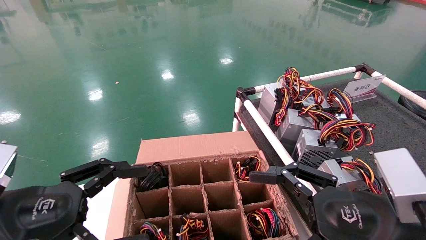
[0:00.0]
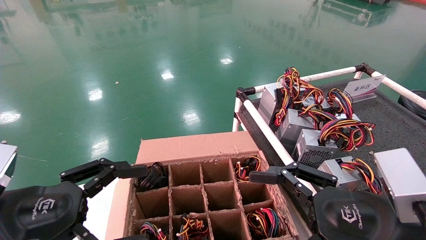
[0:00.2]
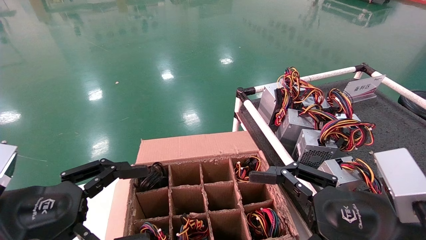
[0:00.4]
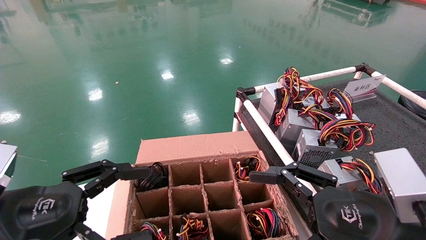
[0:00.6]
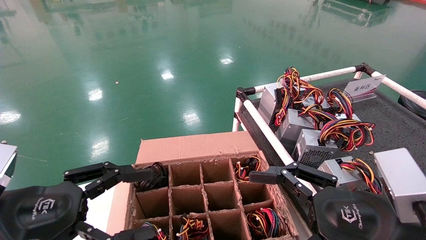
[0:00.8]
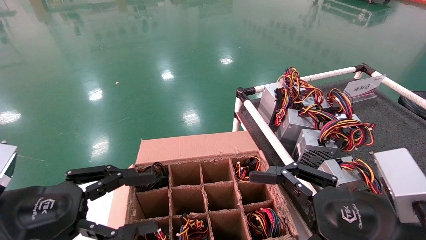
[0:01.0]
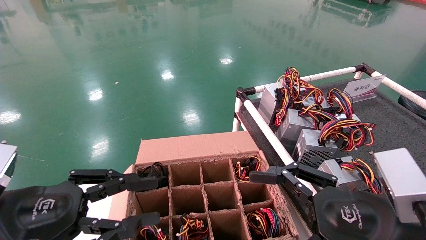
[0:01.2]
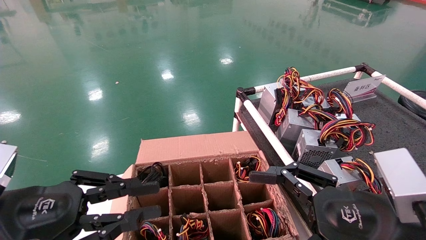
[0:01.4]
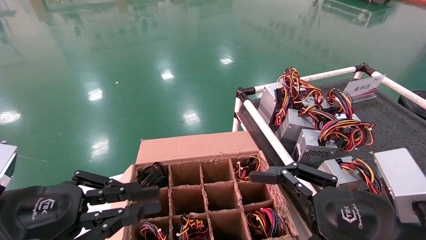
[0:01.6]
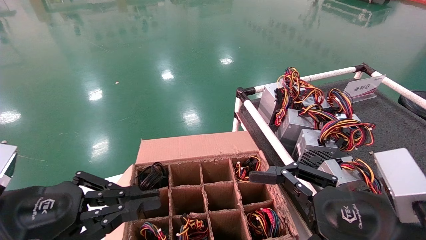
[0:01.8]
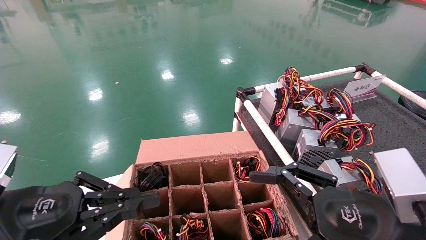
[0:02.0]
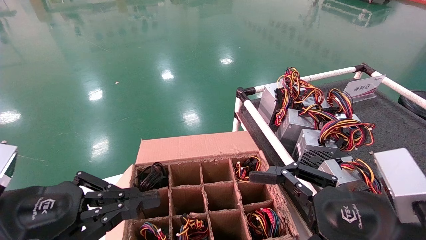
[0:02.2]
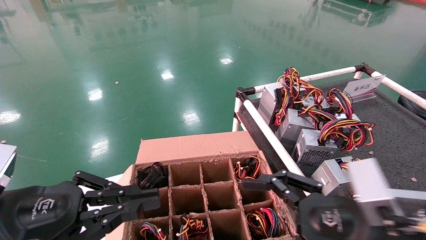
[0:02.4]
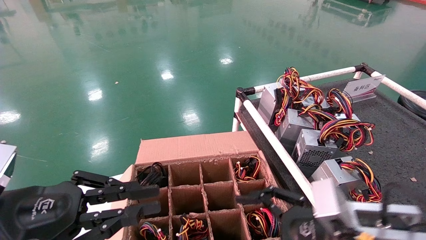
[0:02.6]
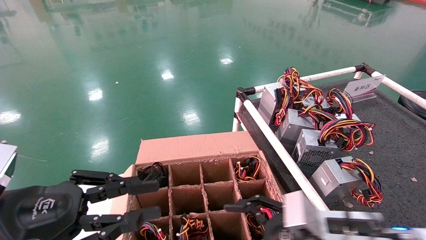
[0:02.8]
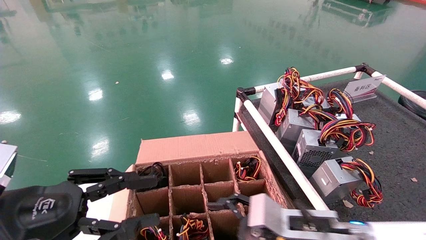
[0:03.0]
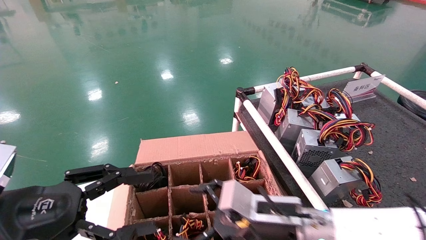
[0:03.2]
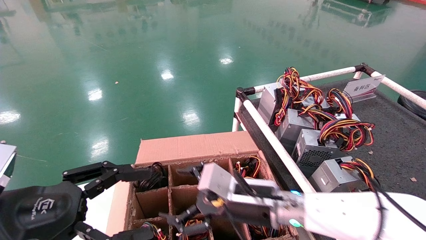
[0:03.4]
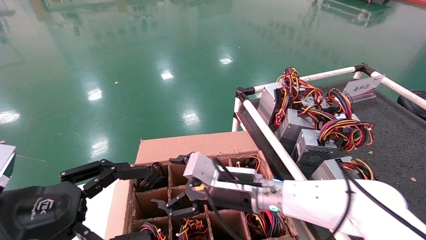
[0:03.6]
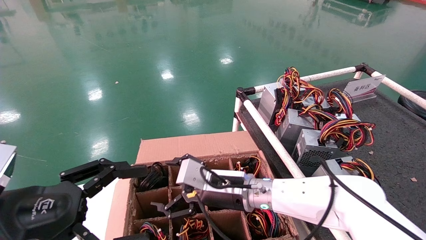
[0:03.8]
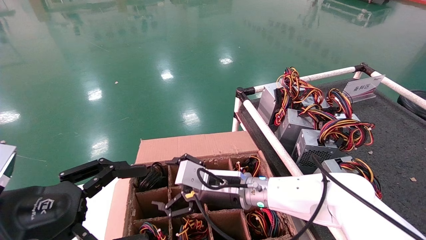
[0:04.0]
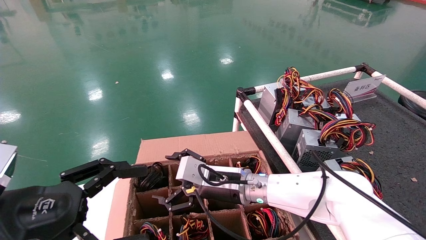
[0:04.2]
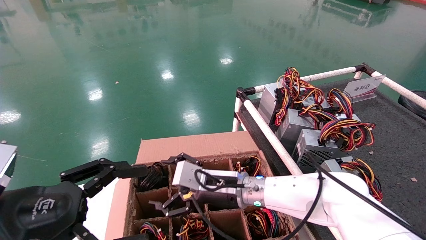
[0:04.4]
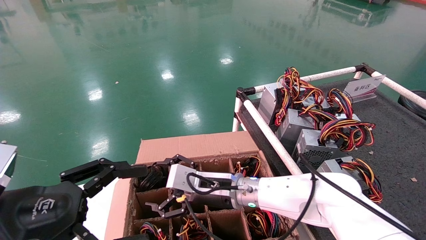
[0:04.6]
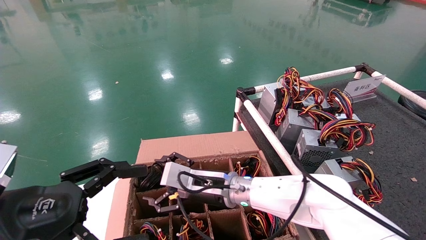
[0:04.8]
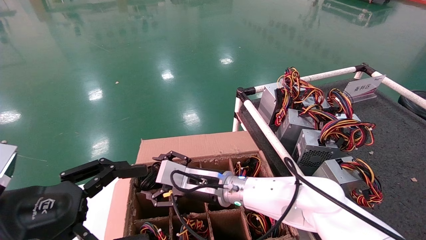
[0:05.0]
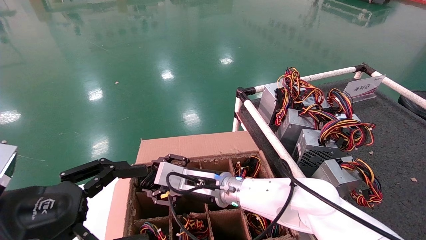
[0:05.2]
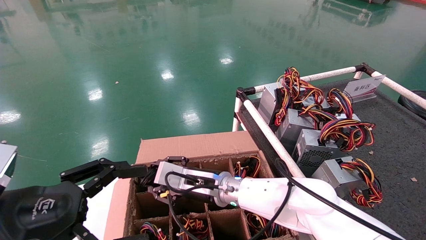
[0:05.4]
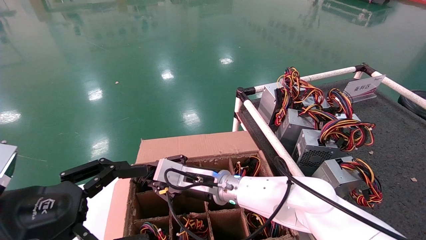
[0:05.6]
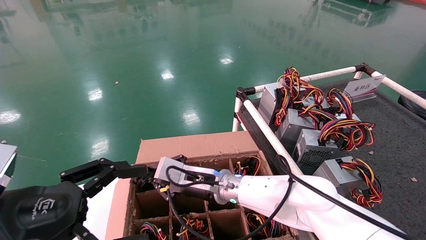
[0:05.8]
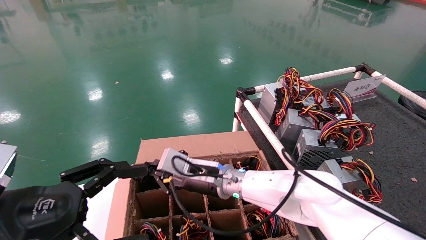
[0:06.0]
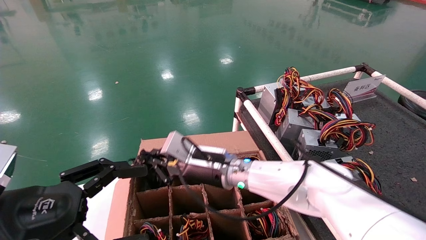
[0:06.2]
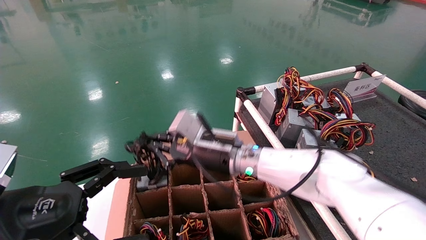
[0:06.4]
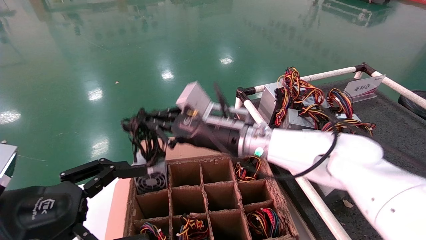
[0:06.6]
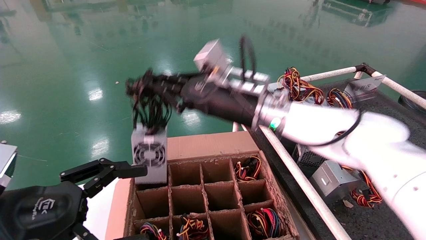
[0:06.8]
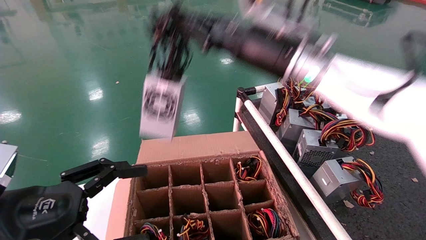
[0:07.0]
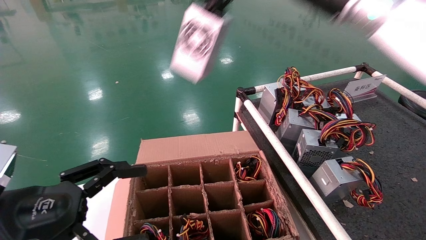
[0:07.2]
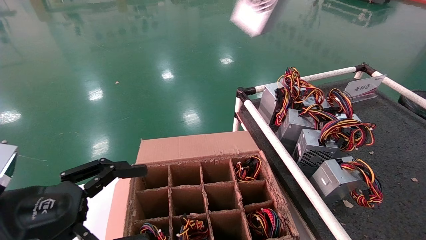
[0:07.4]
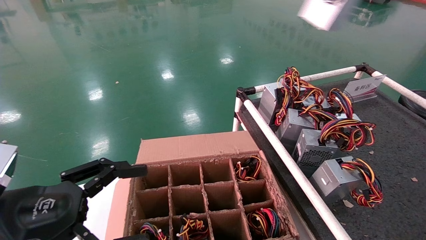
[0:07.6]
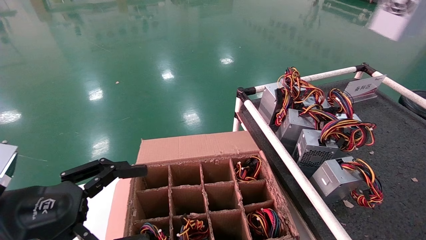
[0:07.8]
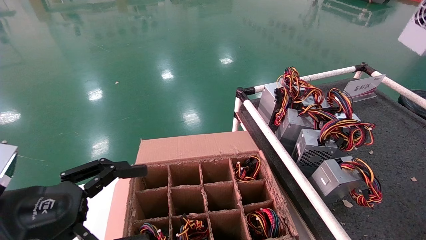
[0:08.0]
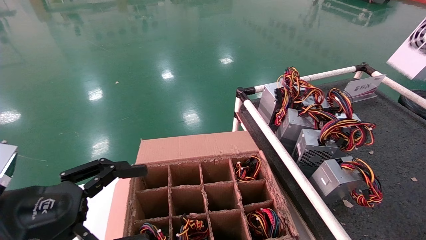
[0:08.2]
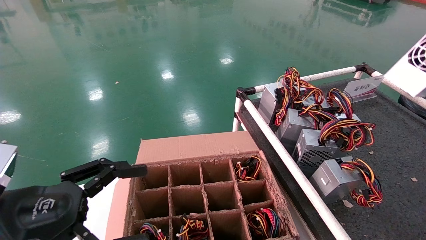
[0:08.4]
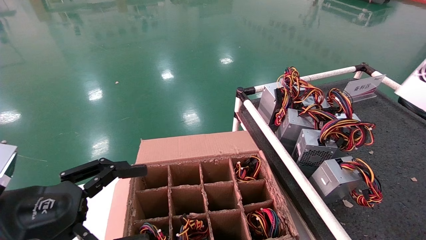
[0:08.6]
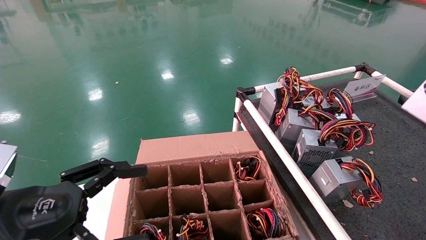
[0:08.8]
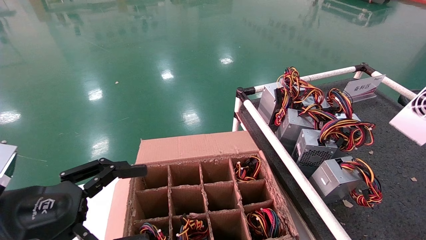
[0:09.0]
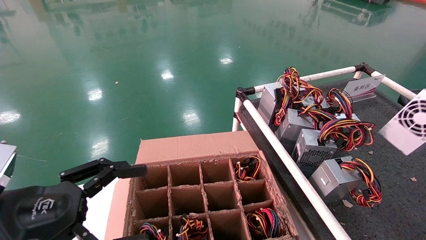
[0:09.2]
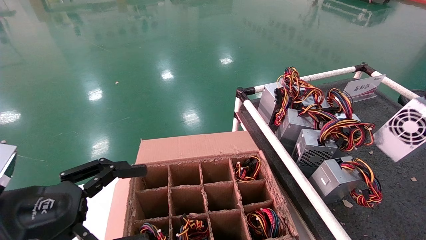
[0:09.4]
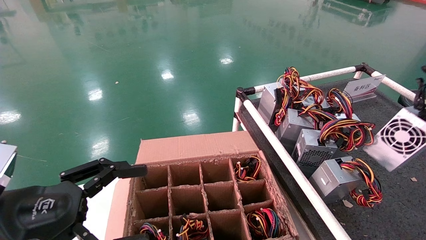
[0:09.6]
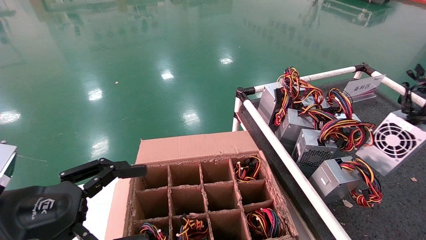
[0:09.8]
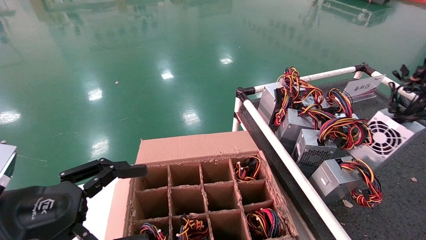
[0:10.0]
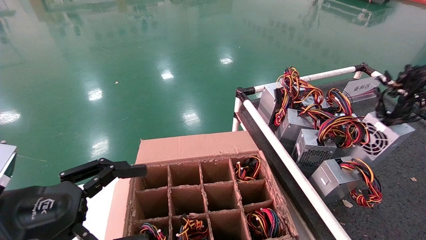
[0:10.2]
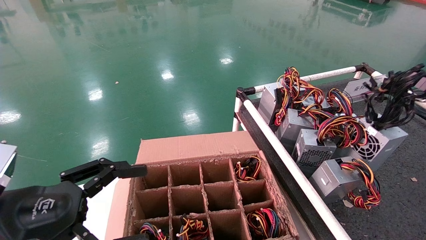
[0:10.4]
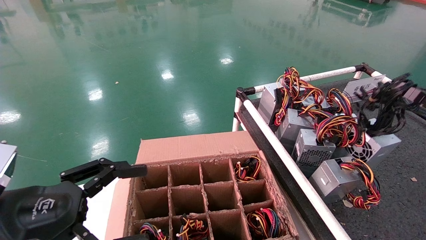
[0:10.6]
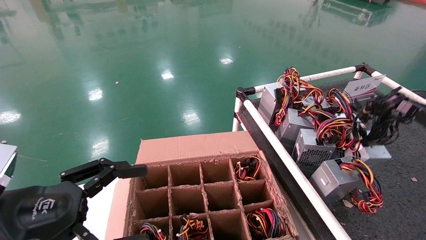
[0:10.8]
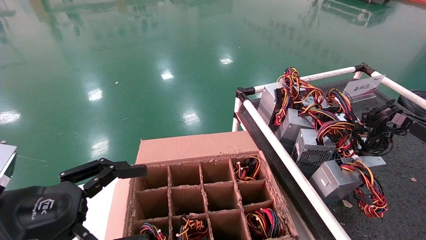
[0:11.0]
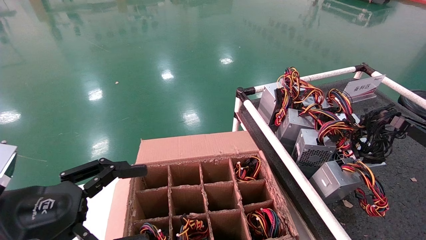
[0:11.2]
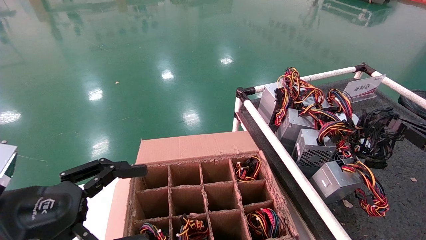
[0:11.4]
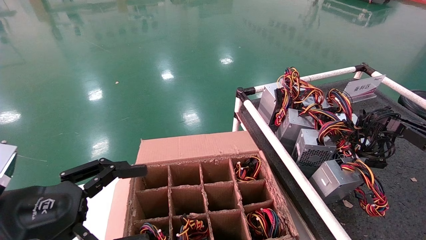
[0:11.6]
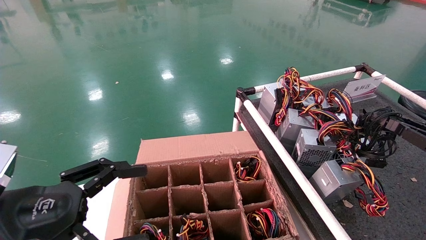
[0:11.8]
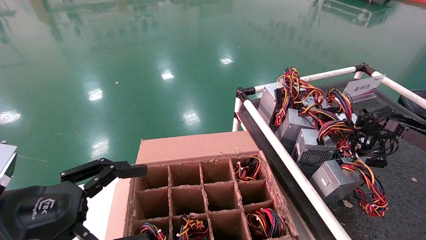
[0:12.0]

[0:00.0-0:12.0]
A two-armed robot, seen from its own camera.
Step, 0:02.6 to 0:06.2: Grab and lift the power supply from the large box.
Step, 0:06.4 to 0:12.0: Place the power supply on the operating table.
0:00.0 to 0:01.6: The left gripper closes.
0:01.6 to 0:03.0: The right gripper heads forward, to the left and downward, covering some 15 cm.
0:03.0 to 0:04.4: The right gripper travels to the left and forward by approximately 15 cm; the left gripper opens up.
0:04.4 to 0:06.0: The right gripper closes.
0:06.0 to 0:07.6: The right gripper shifts approximately 50 cm upward and to the right.
0:07.6 to 0:09.0: The right gripper travels downward, to the right and backward by about 30 cm.
0:09.0 to 0:10.4: The right gripper shifts roughly 10 cm downward, to the left and forward.
0:10.4 to 0:12.0: The right gripper moves downward, some 5 cm.

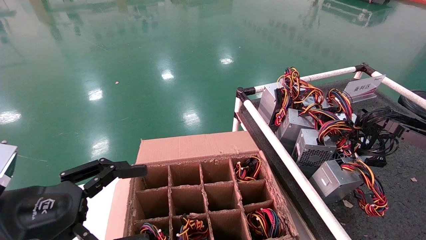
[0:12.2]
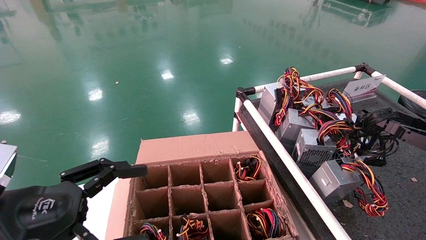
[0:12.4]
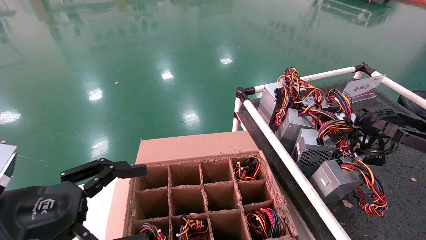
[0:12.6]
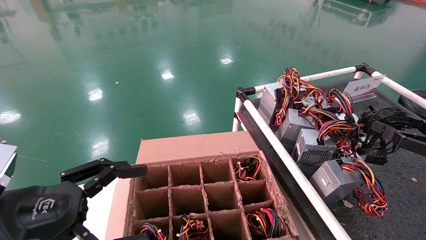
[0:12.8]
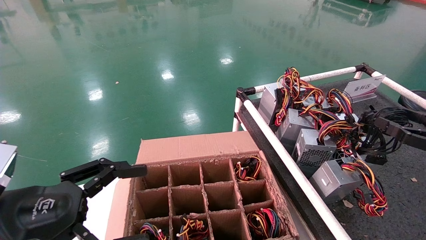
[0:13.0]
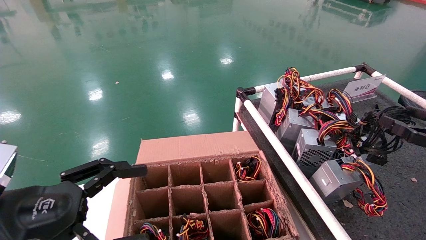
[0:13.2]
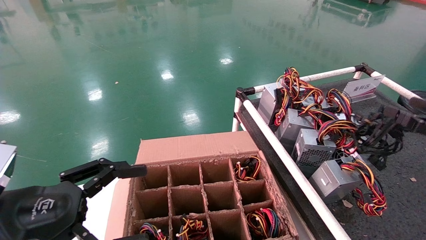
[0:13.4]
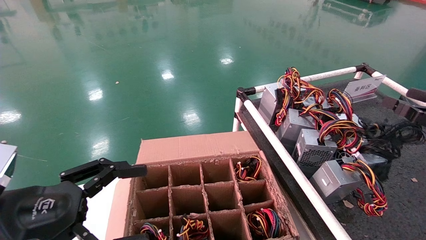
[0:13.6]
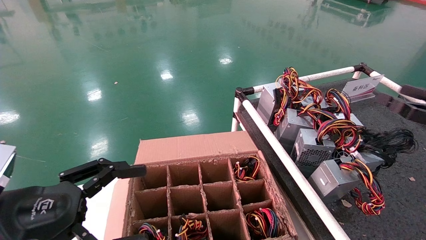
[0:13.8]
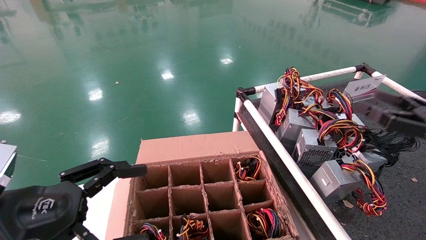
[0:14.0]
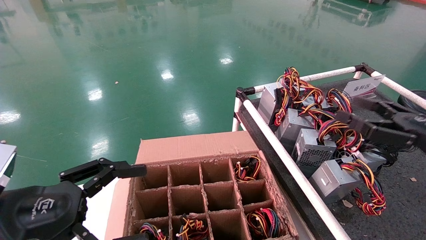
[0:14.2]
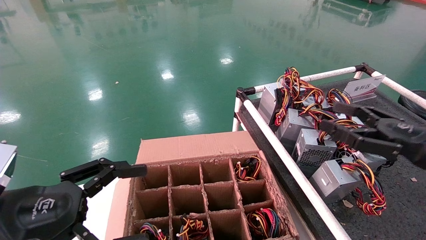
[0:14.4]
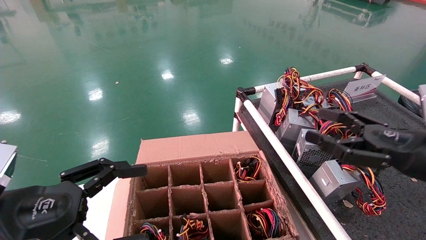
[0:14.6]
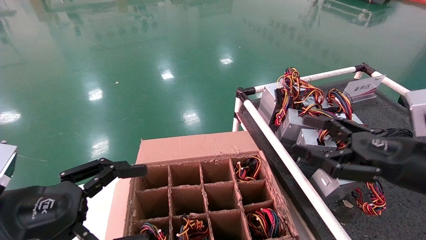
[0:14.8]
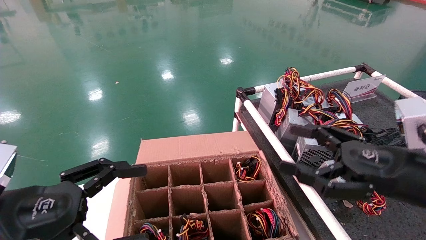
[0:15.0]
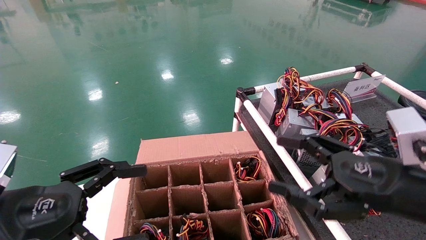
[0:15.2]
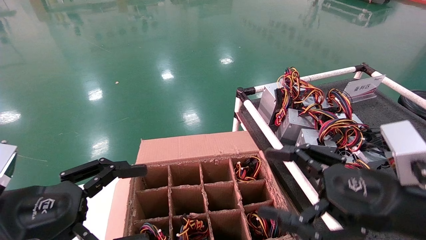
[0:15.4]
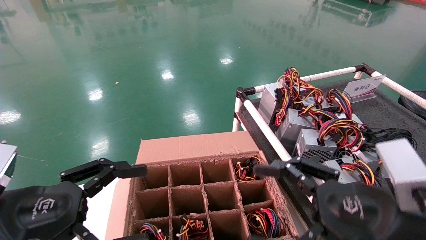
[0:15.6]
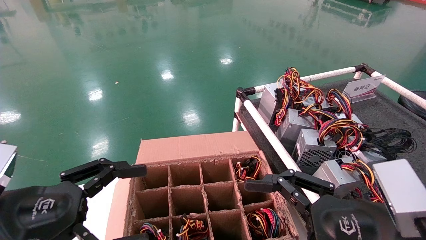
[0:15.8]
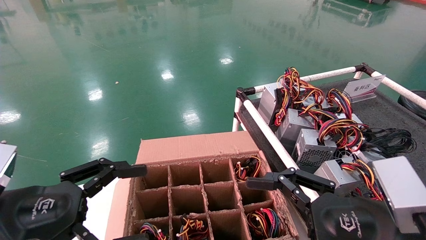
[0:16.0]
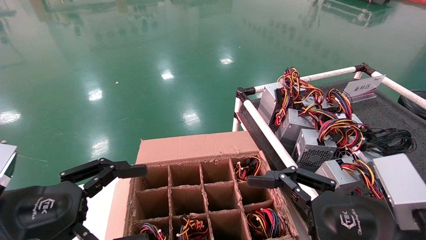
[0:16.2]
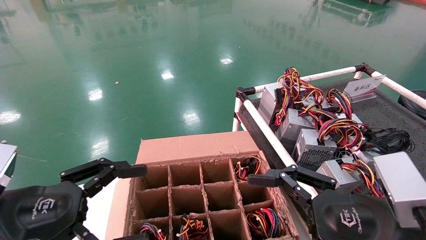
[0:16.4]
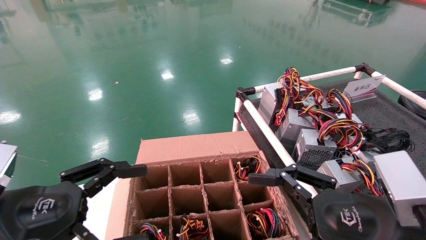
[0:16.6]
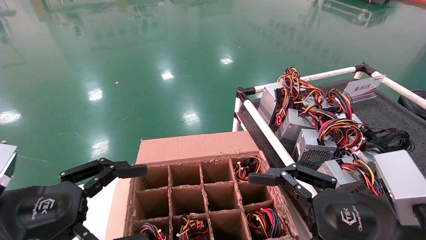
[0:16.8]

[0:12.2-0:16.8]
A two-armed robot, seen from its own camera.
0:12.2 to 0:13.8: The right gripper ends up some 5 cm from where it was, and opens.
0:13.8 to 0:15.2: The right gripper moves to the left, some 20 cm.
0:15.2 to 0:16.8: The right gripper ends up approximately 5 cm from where it was.
